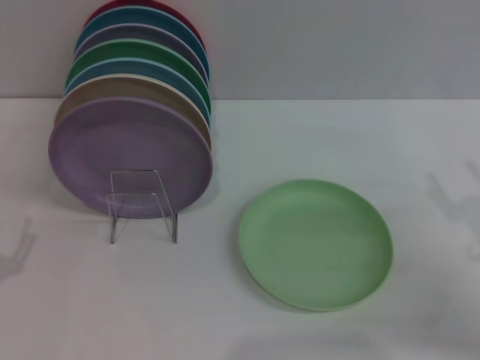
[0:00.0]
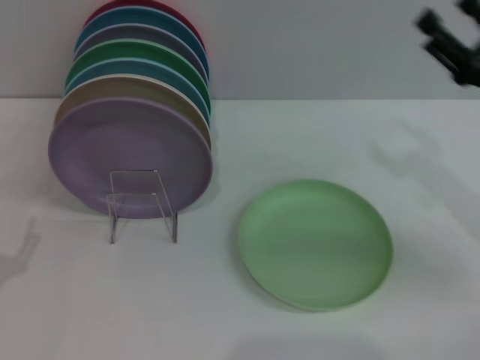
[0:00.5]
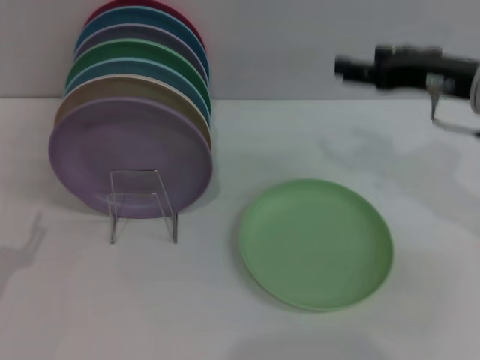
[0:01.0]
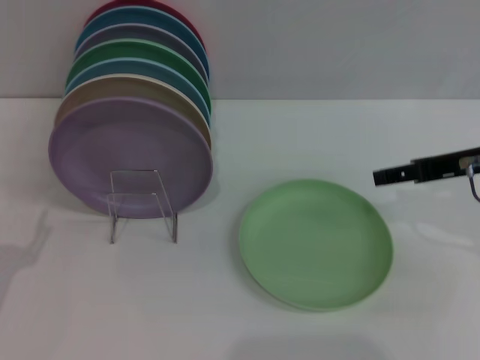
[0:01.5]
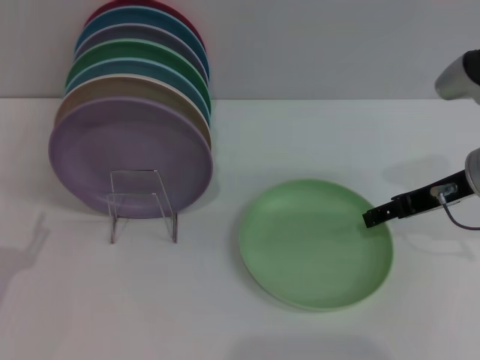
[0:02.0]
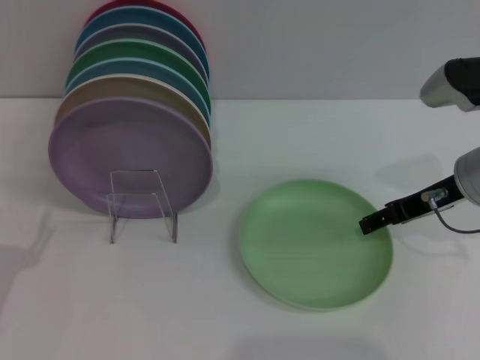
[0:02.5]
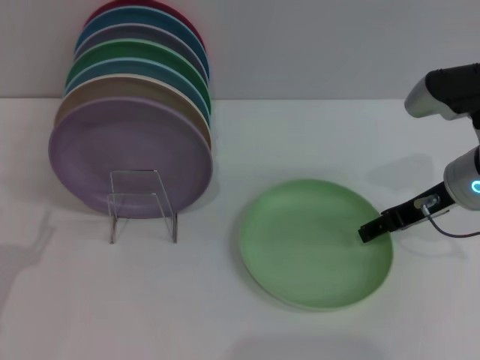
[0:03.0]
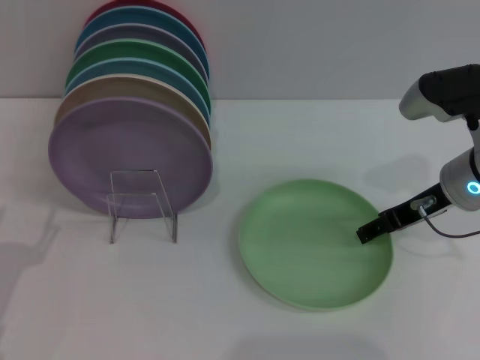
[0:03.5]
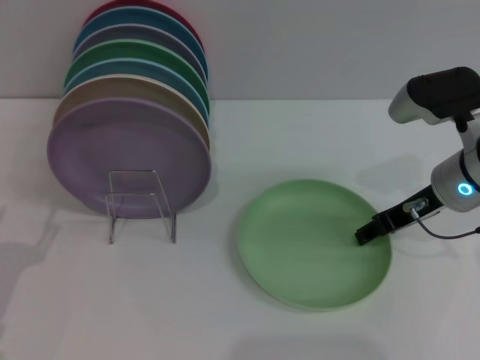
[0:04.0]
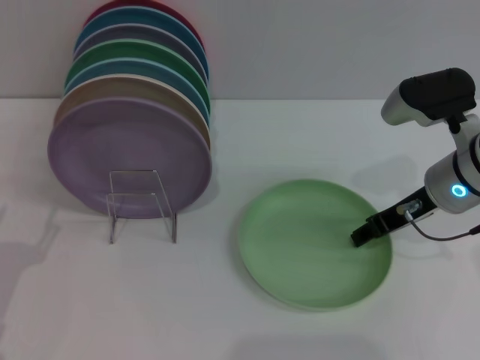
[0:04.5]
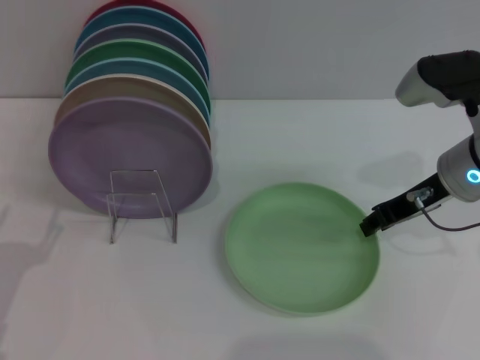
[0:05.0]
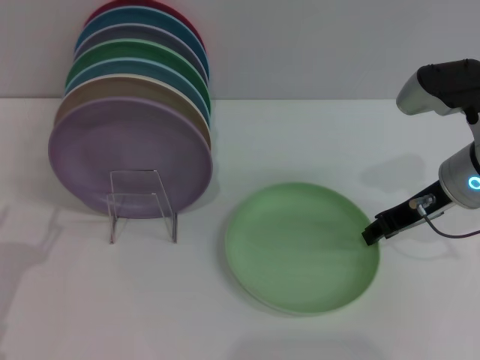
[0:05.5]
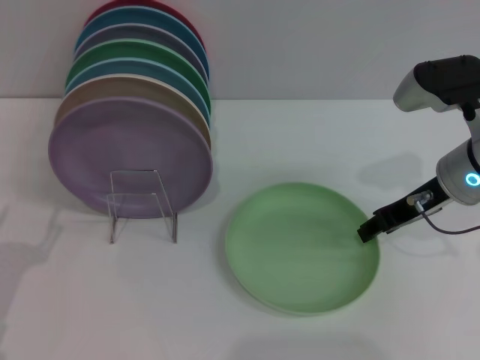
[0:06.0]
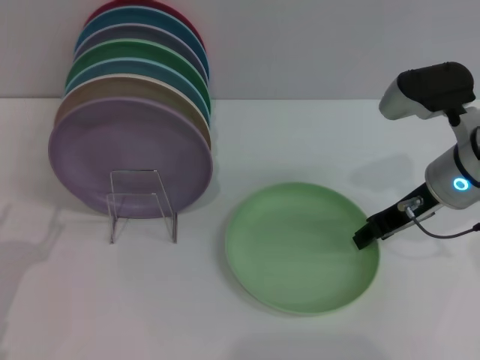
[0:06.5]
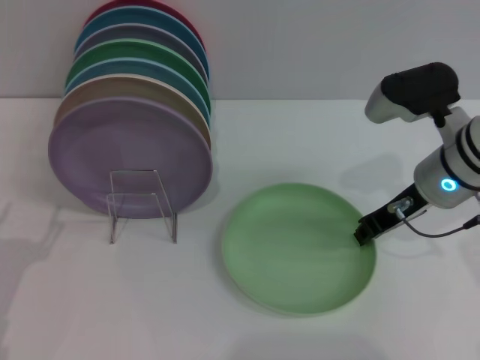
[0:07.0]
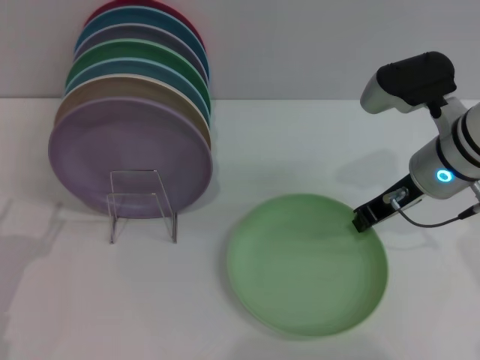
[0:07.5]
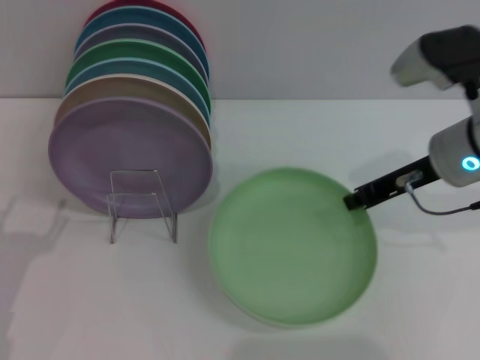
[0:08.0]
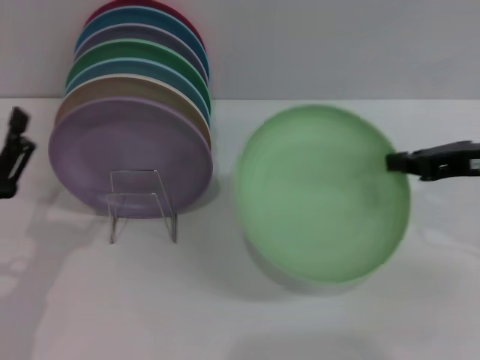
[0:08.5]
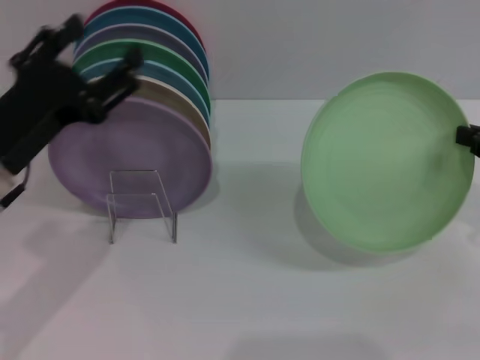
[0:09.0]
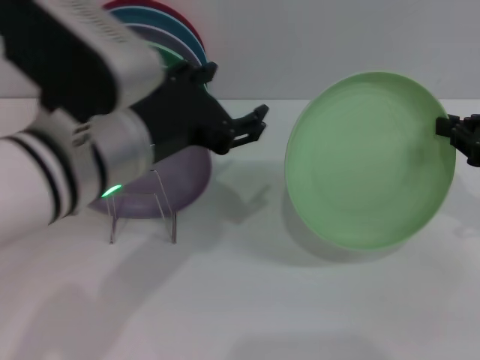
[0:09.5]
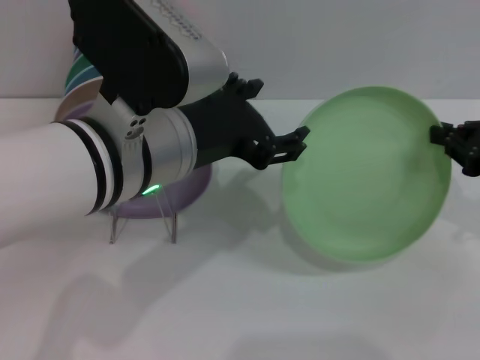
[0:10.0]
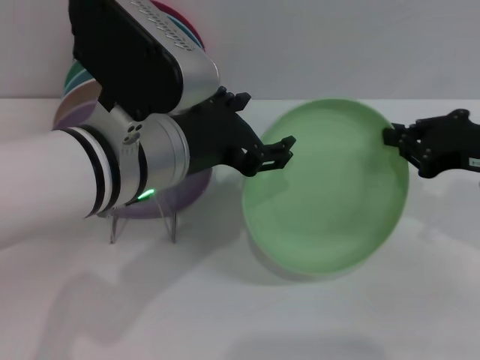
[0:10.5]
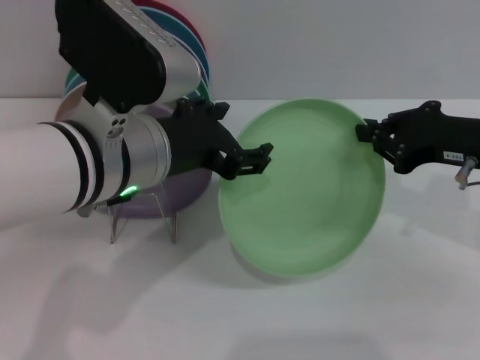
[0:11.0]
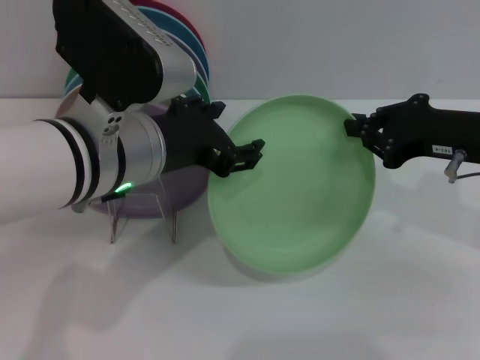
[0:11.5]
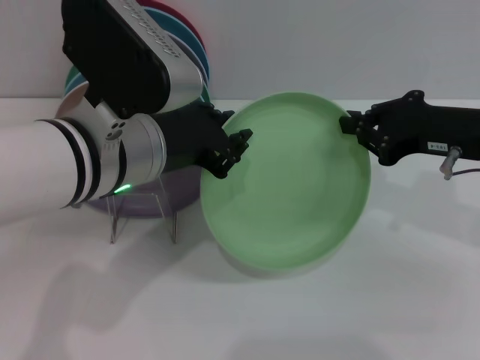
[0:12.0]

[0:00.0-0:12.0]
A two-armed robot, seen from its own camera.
Task of the whole recording: Grip the plate with one hand, pass it to the other, then set it on the shelf.
Step, 0:00.0 to 0:08.0: Pick up the plate with the right gripper.
0:00.0 to 0:02.0: The right gripper goes some 15 cm forward, upward and to the left.
0:02.0 to 0:06.0: The grippers stay close to where they were, moving slightly.
0:06.0 to 0:08.0: The right gripper closes up.
0:08.0 to 0:10.0: The left gripper heads to the right and upward, covering about 25 cm. The right gripper travels to the right and backward by about 15 cm.
0:10.0 to 0:12.0: The right gripper moves to the left, roughly 5 cm. The left gripper closes its fingers.

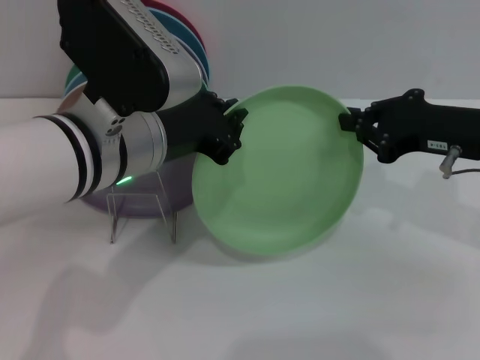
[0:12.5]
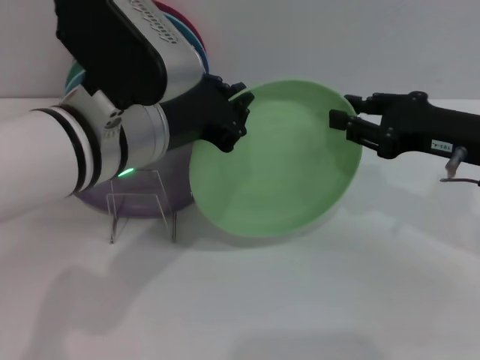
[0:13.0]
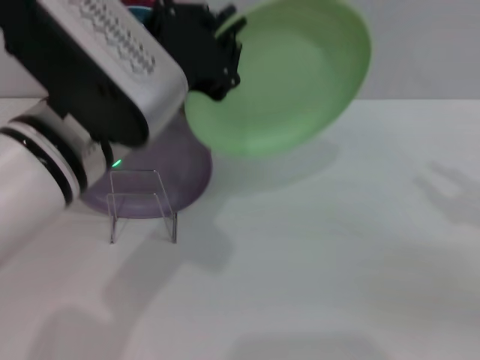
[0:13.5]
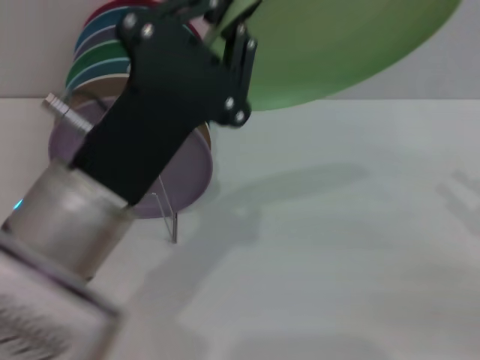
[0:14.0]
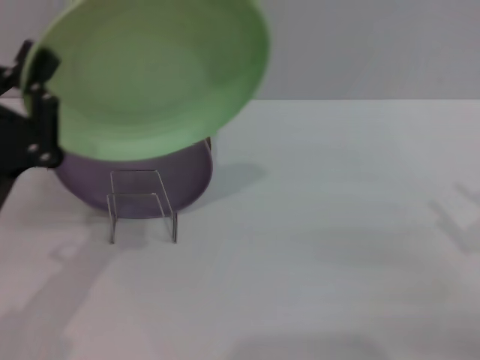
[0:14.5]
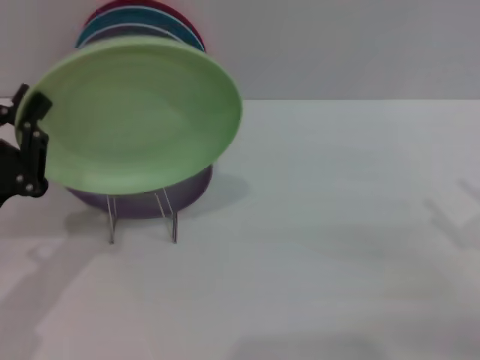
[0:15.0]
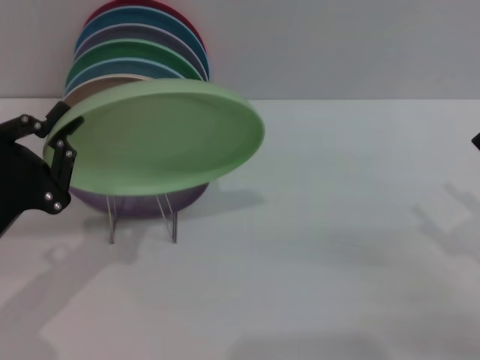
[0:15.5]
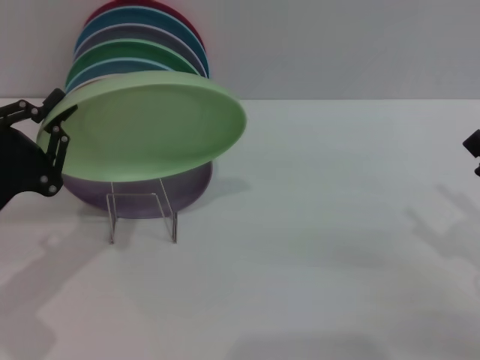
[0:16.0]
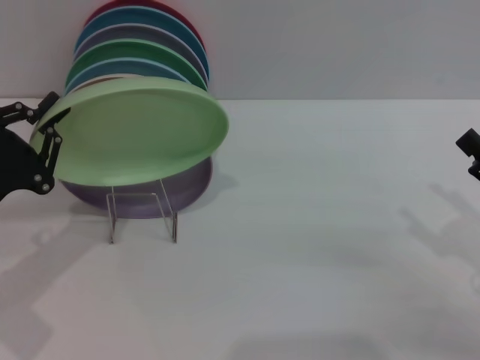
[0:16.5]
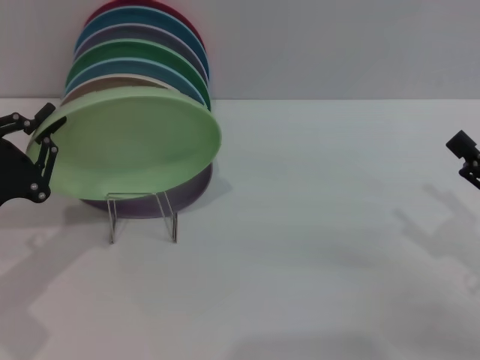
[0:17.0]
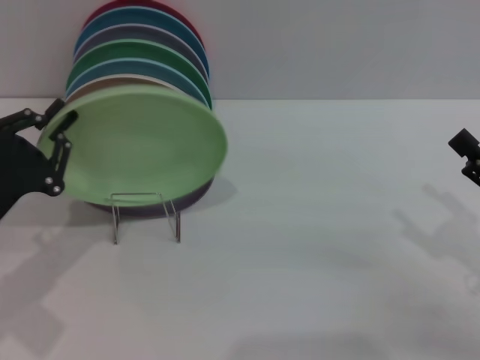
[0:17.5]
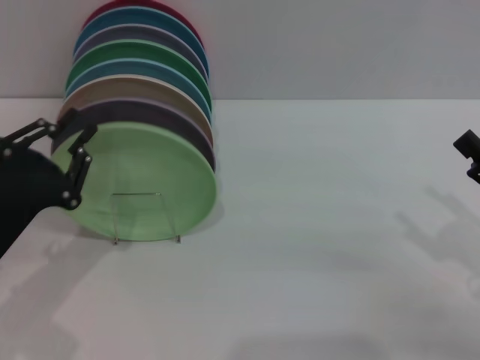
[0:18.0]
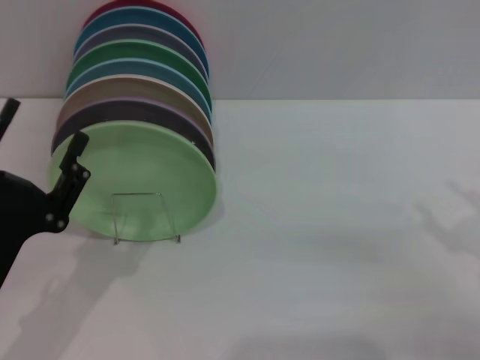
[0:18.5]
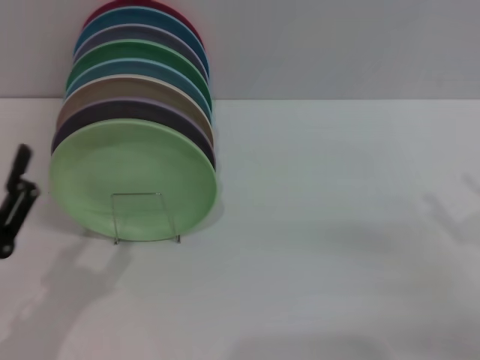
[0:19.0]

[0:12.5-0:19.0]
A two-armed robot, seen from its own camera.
Task of the whole recording: Grip the plate with one hand, pass it to the other, then set it on the shelf.
Step, 0:13.5 to 0:18.0: Place the plate on the shelf with the left gripper.
0:12.5 to 0:14.5: The right gripper is displaced backward, to the right and downward by some 15 cm, and opens its fingers; the left gripper is displaced to the left, downward and backward by roughly 15 cm.
0:14.5 to 0:17.0: The left gripper travels to the left by about 5 cm.
0:17.0 to 0:19.0: The left gripper goes some 10 cm backward, and opens.
